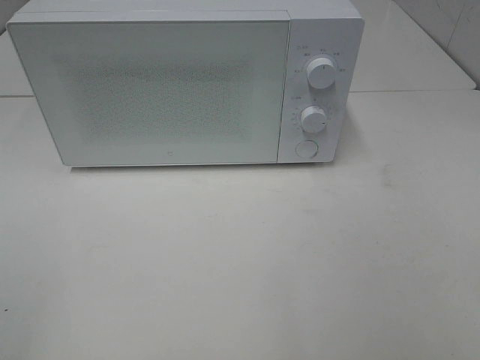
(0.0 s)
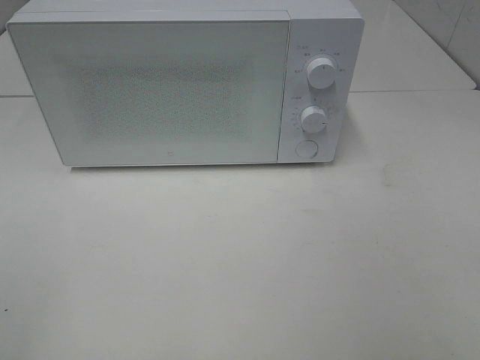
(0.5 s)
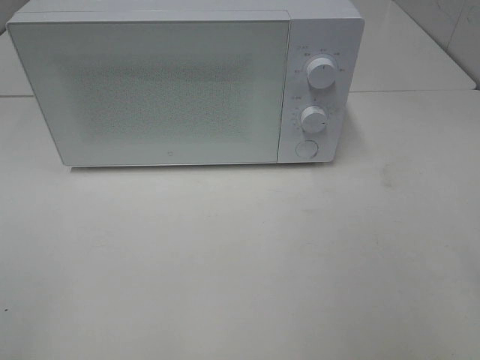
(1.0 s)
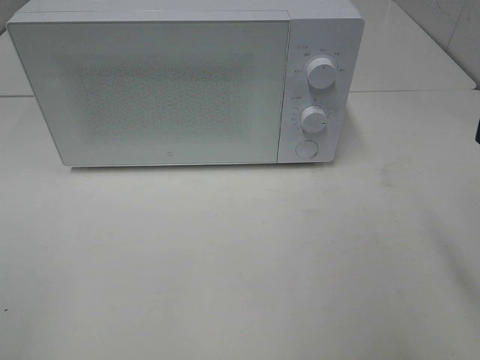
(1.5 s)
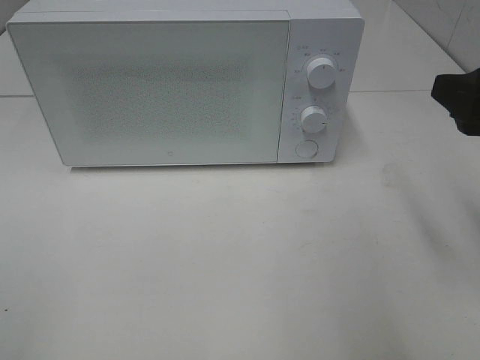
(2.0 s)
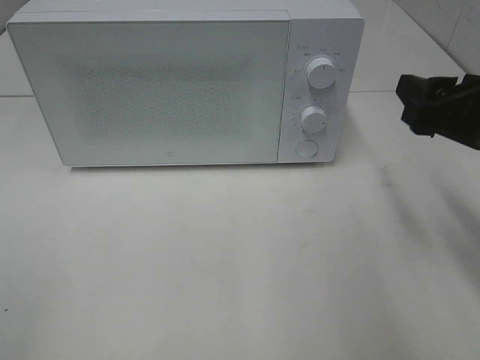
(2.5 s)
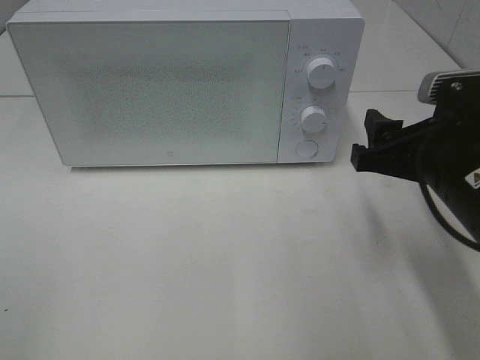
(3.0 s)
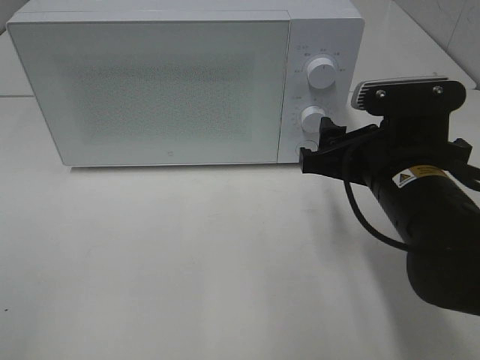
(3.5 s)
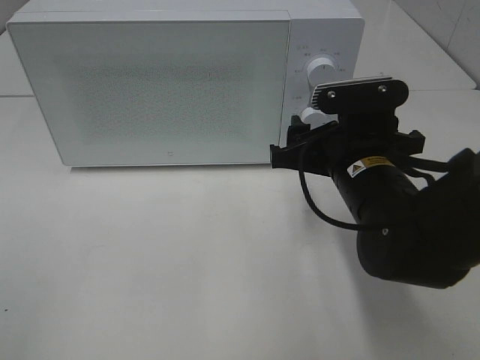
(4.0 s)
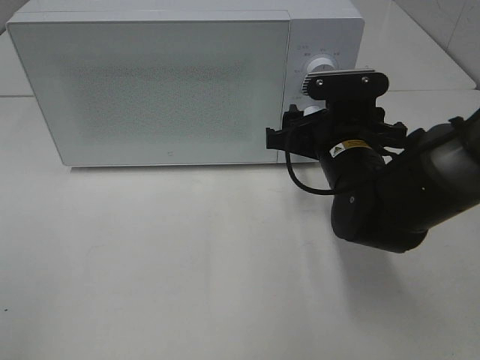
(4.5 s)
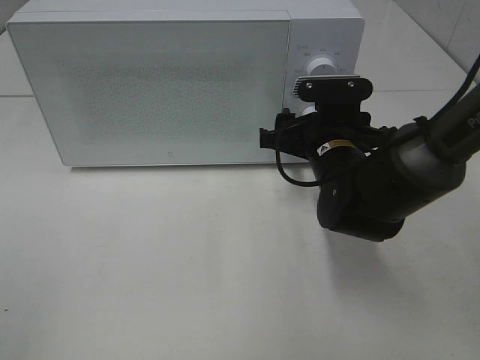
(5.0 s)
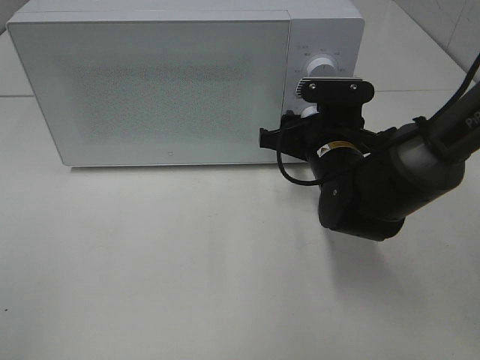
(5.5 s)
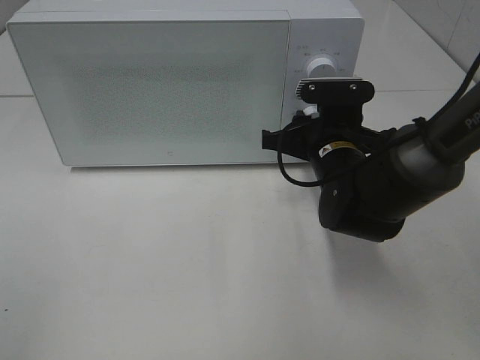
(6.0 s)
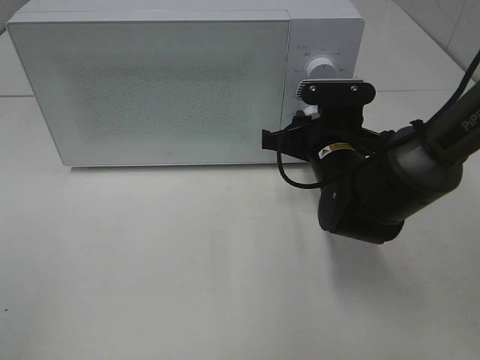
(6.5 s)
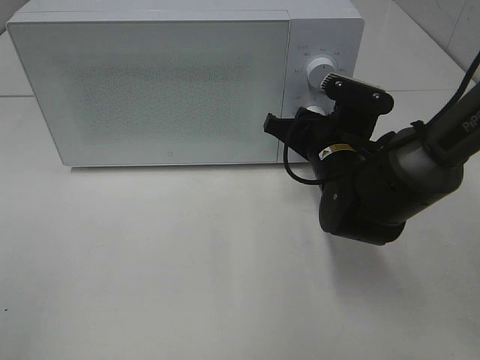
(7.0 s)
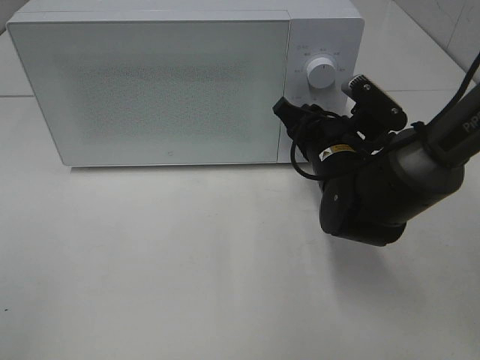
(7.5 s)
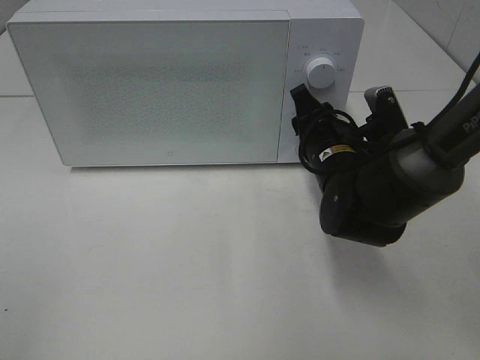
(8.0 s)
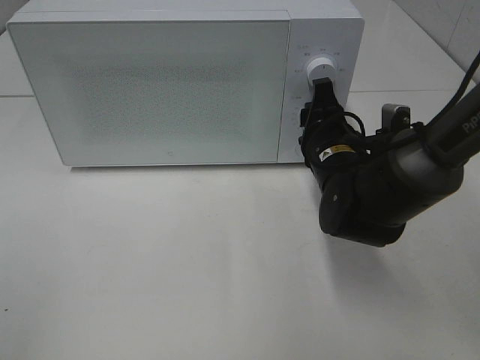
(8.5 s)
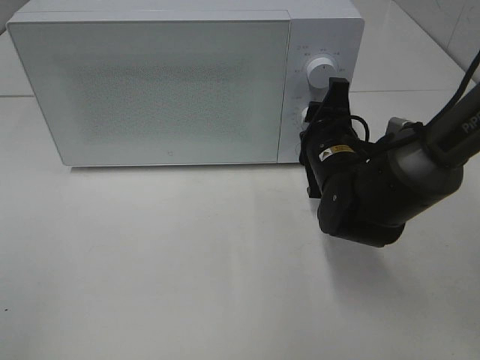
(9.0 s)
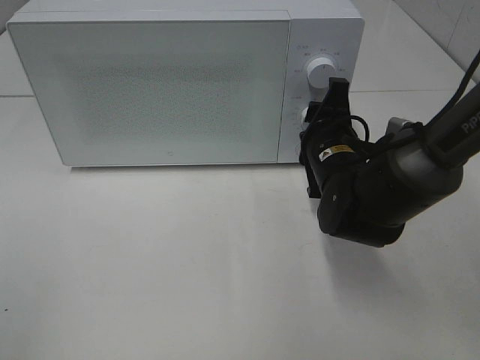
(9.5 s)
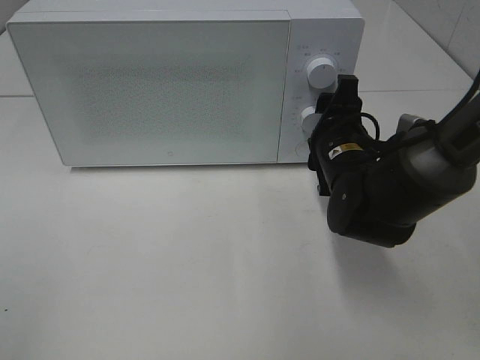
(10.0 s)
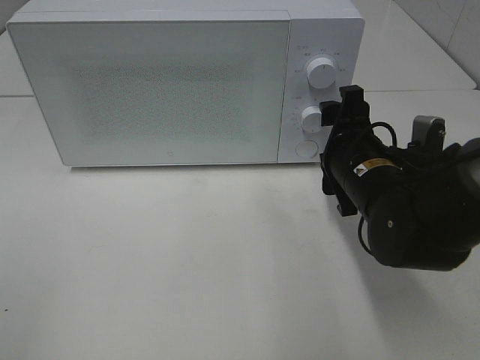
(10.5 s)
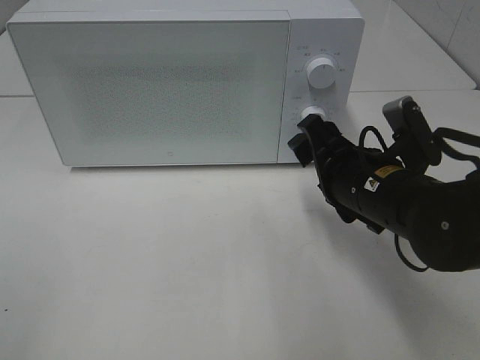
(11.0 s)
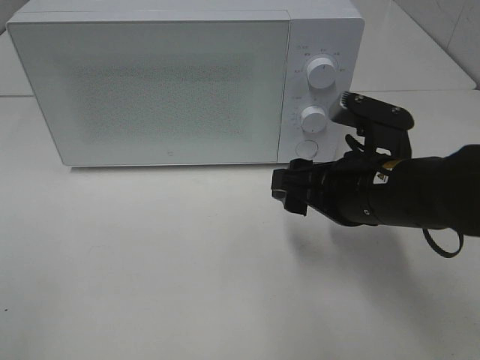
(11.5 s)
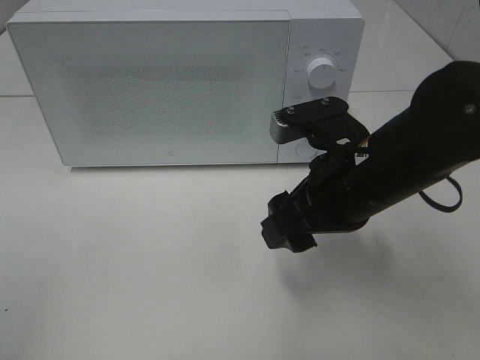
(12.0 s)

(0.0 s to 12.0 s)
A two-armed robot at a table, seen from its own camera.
Task of the whole recording: Heat the burger.
Step, 0.0 s - 10.0 s: Right hand: twist timer button.
0.0 s - 2.0 s: The right gripper heads forward, covering some 20 cm.
2.0 s - 4.0 s: The right gripper goes approximately 20 cm to the left, downward and forward.
4.0 s - 6.0 s: The right gripper heads forward, covering about 5 cm, and closes up.
10.0 s - 12.0 s: The right gripper moves backward and upward, roughly 10 cm.

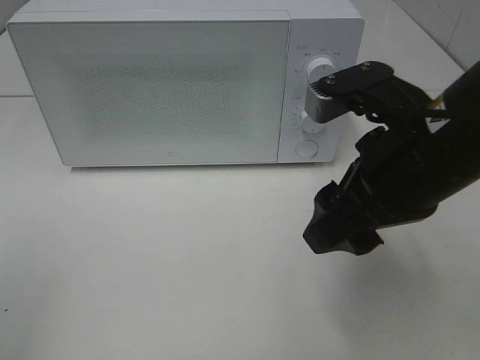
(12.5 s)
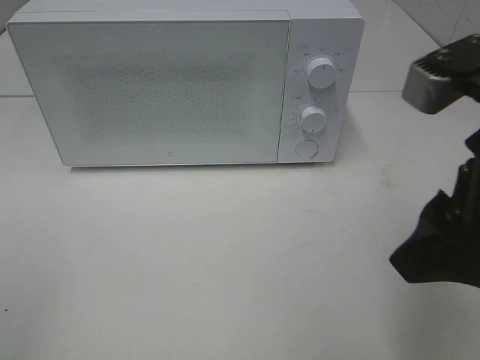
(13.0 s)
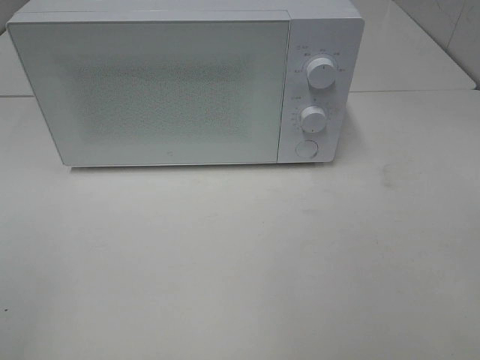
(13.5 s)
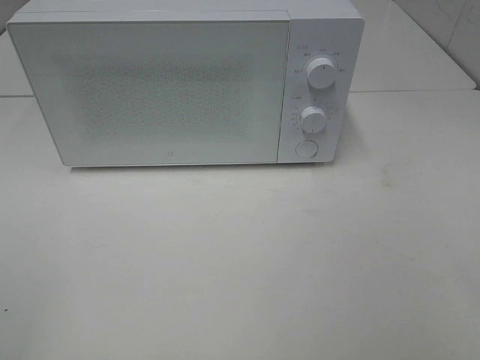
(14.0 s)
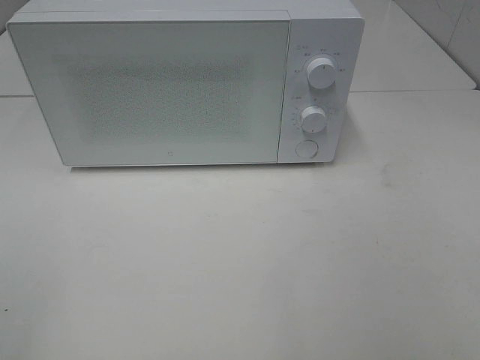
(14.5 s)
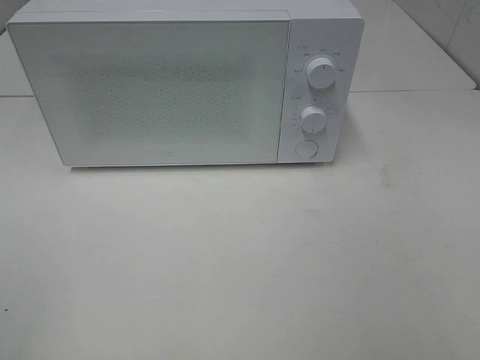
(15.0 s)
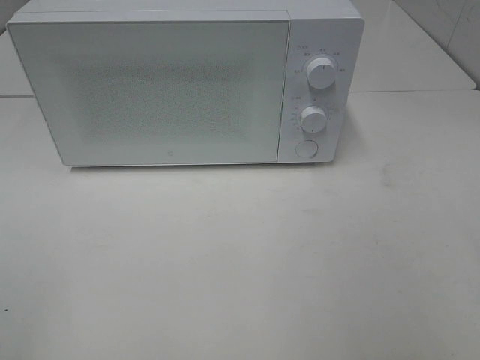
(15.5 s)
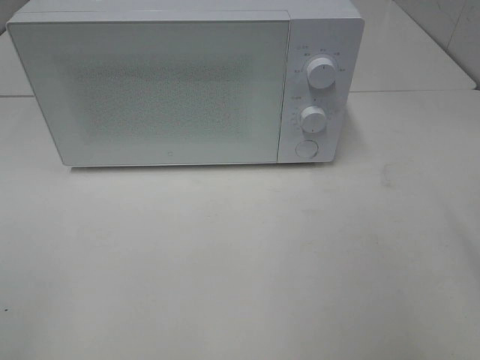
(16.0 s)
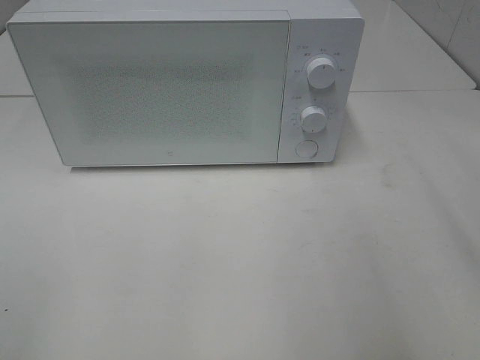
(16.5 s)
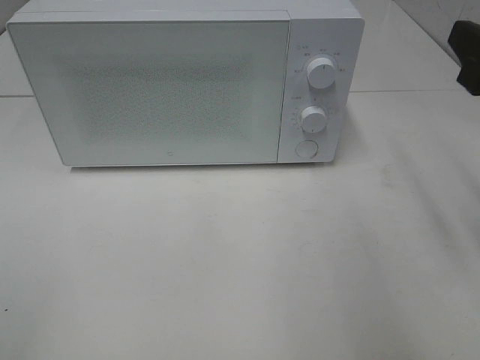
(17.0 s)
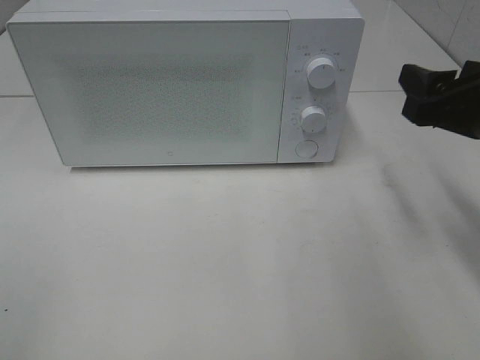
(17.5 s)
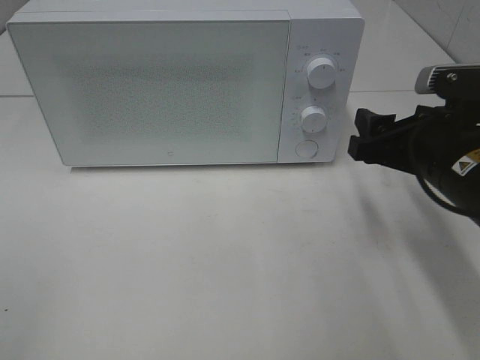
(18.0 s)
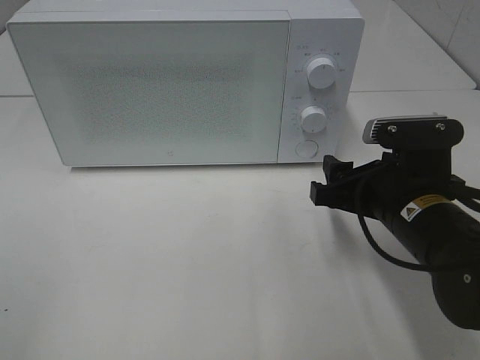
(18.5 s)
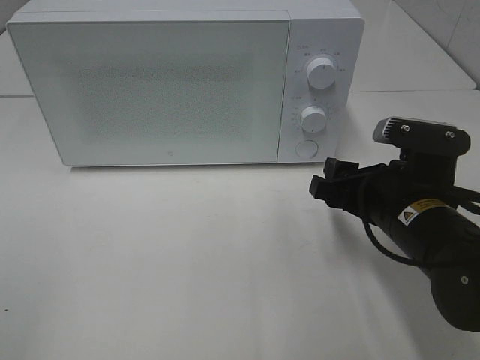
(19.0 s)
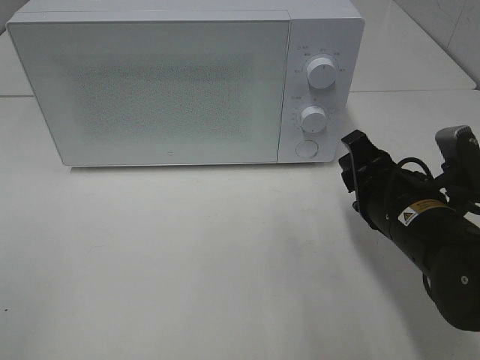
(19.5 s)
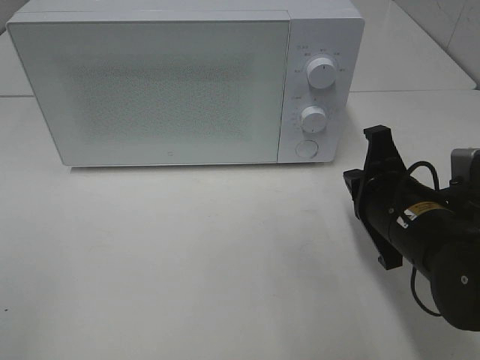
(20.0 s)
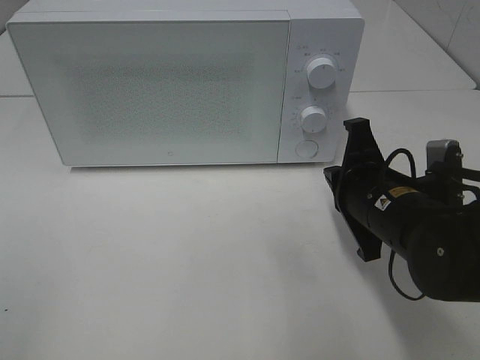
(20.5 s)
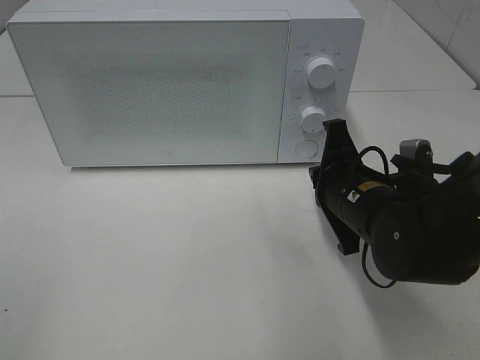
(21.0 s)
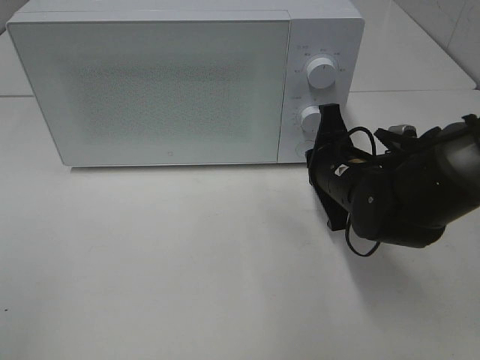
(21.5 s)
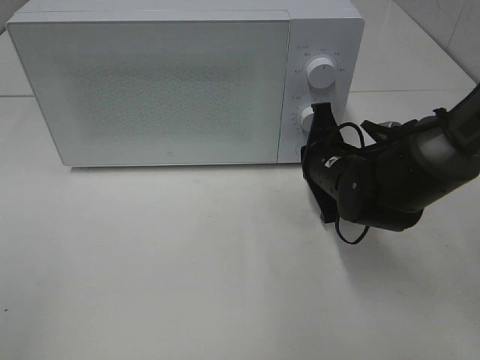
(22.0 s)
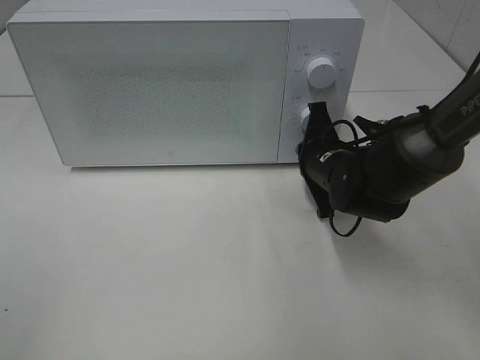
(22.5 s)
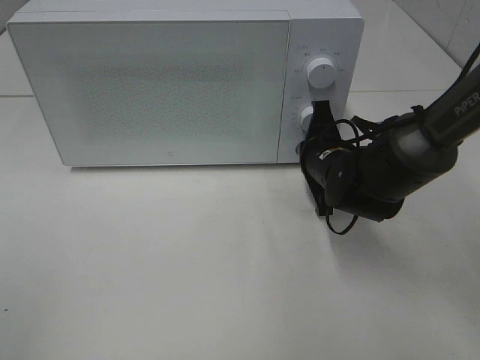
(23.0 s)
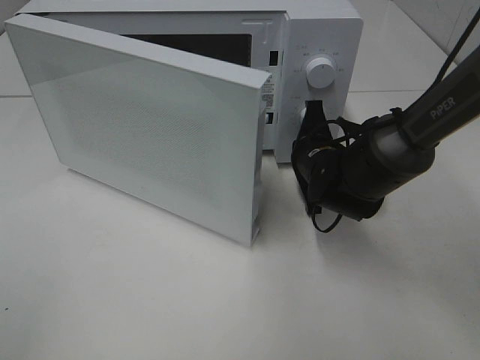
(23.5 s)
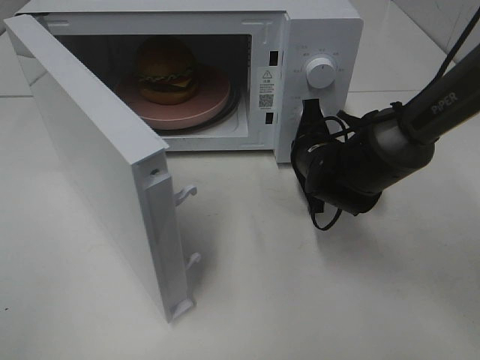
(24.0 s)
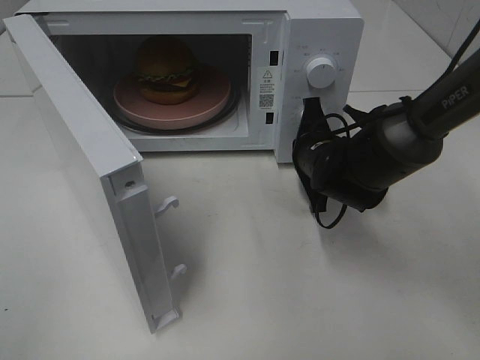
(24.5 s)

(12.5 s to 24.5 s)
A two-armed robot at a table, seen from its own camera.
Task of the whole recording: Heat the burger.
12.5 s - 14.5 s: The right gripper goes some 25 cm backward and to the right.
16.5 s - 18.5 s: The right gripper shifts about 20 cm downward, to the left and forward.
18.5 s - 20.5 s: The right gripper closes its fingers.
20.5 s - 22.5 s: The right gripper heads forward, covering about 10 cm.

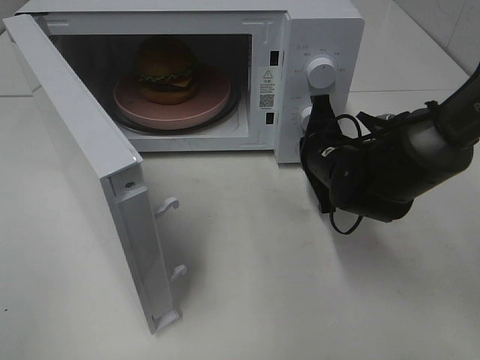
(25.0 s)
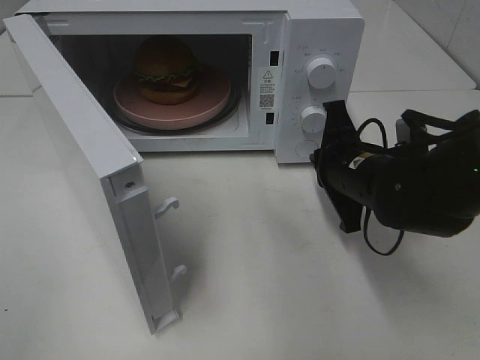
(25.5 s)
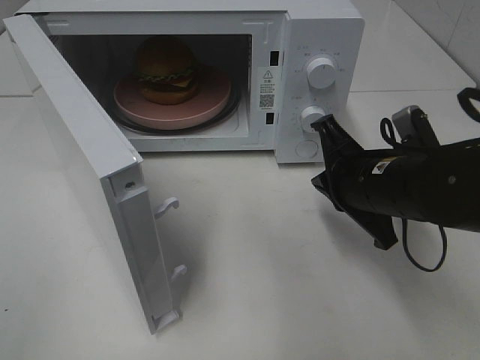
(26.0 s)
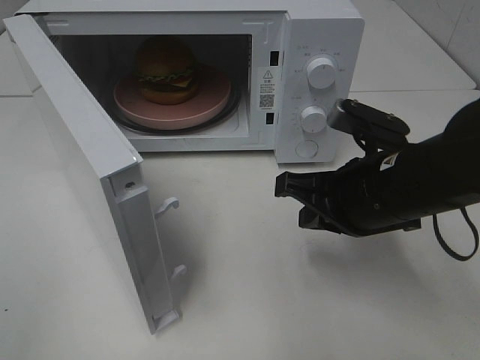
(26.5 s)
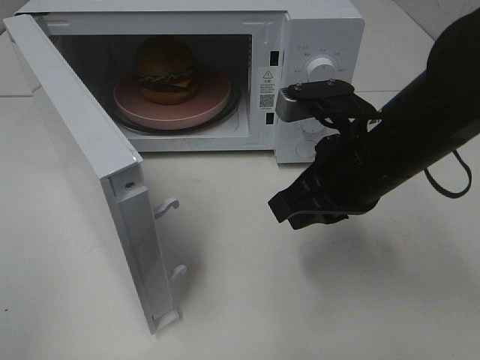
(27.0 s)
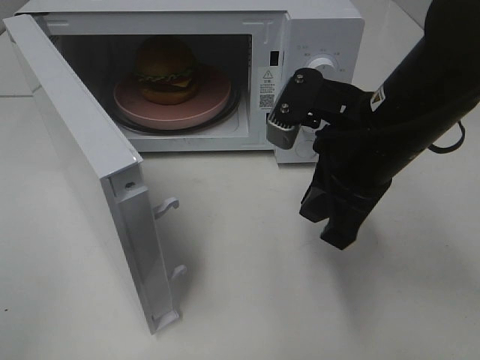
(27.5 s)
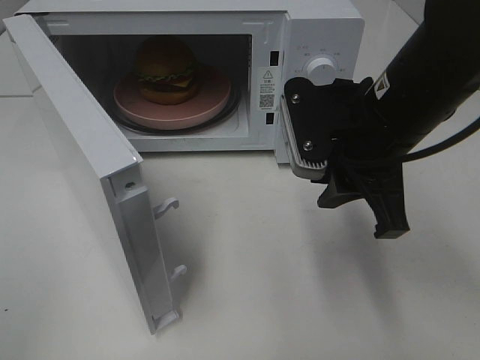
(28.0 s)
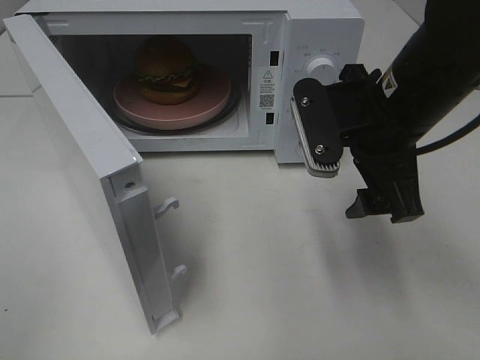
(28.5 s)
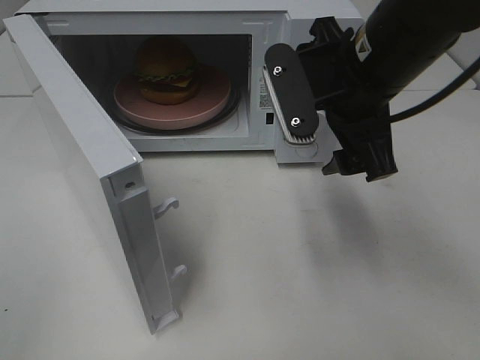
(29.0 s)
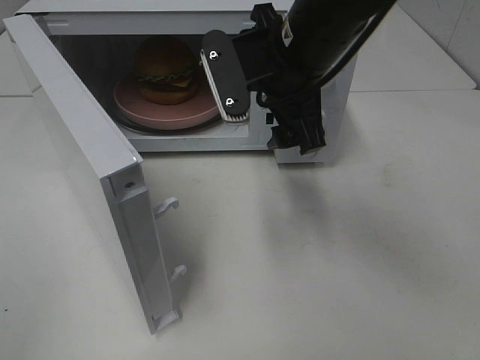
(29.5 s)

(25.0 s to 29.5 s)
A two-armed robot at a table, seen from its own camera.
Task of the whole recording: Heat the burger.
25.0 s - 27.0 s: The right gripper is displaced upward and backward by approximately 15 cm.
27.0 s - 29.5 s: The right gripper travels forward, to the left and upward by some 10 cm, and opens its fingers.
